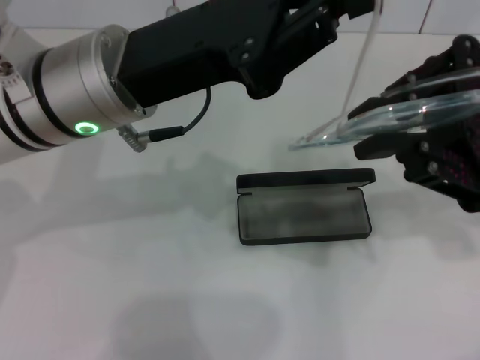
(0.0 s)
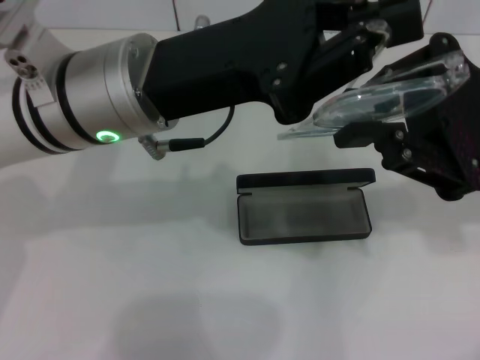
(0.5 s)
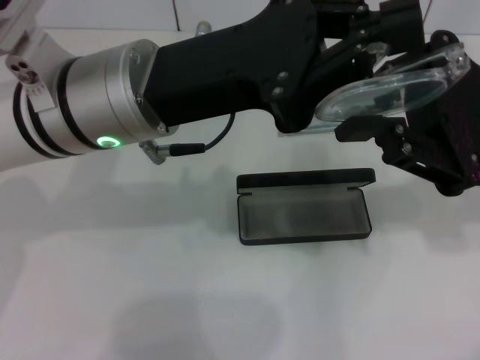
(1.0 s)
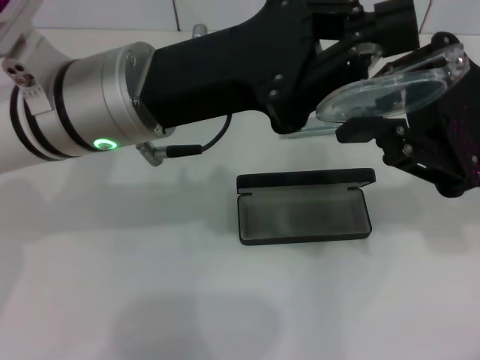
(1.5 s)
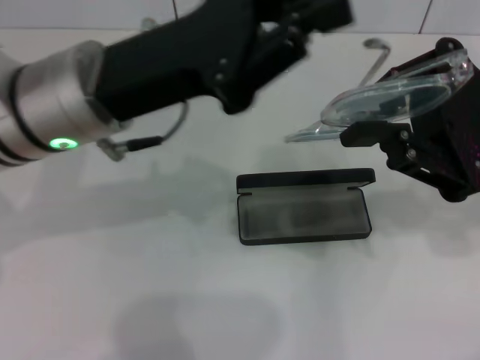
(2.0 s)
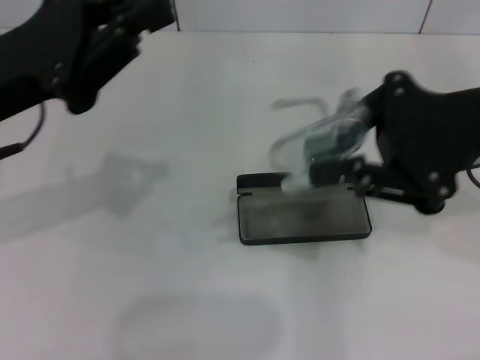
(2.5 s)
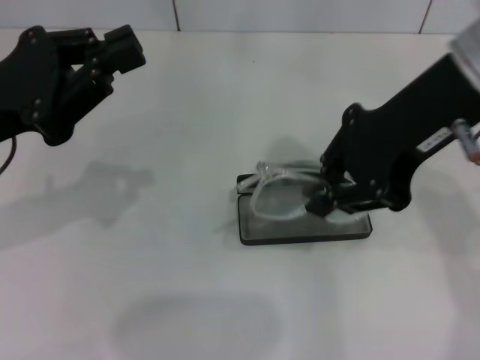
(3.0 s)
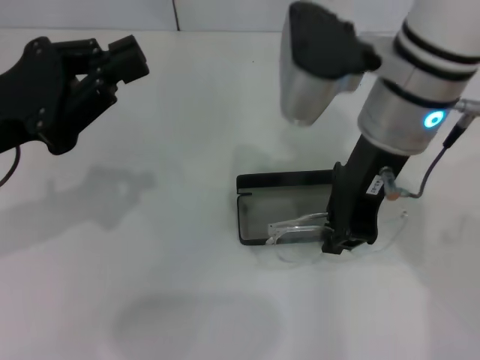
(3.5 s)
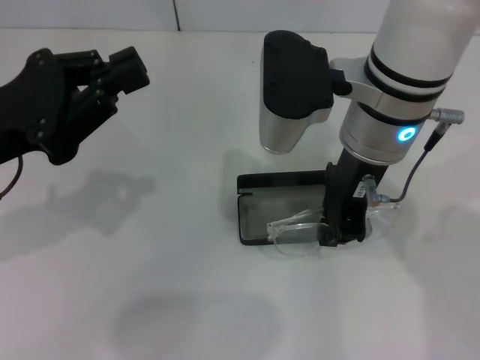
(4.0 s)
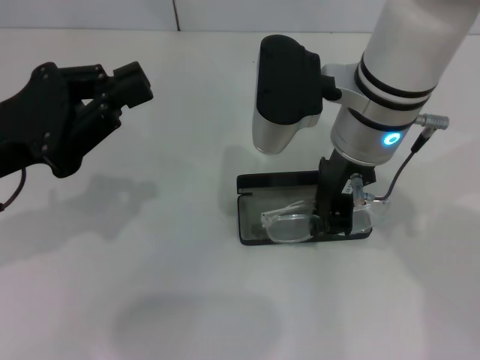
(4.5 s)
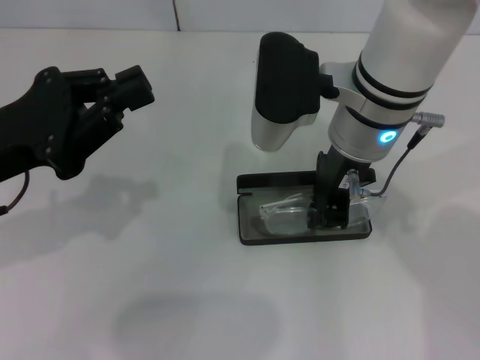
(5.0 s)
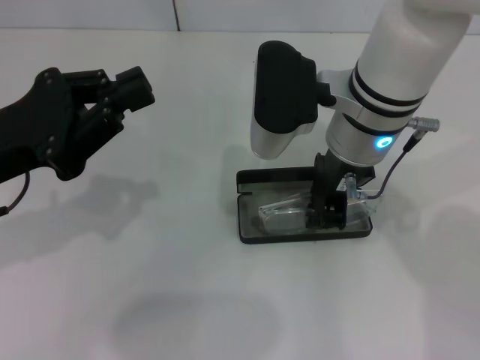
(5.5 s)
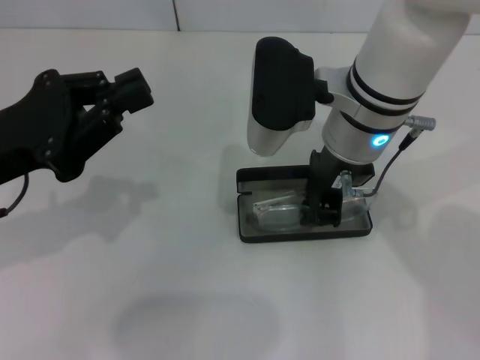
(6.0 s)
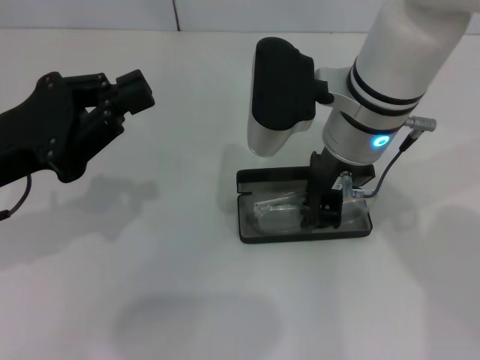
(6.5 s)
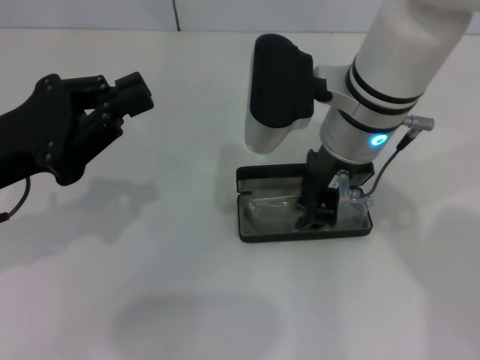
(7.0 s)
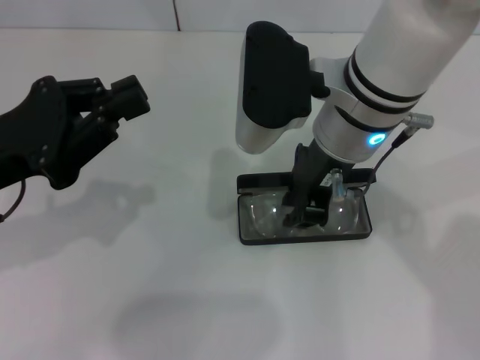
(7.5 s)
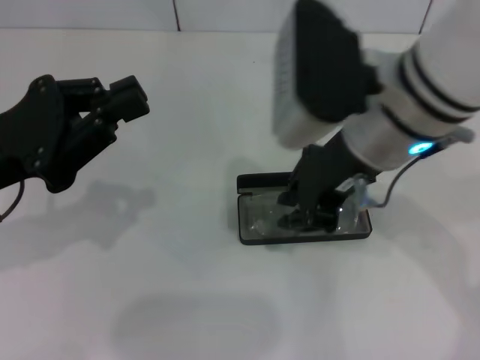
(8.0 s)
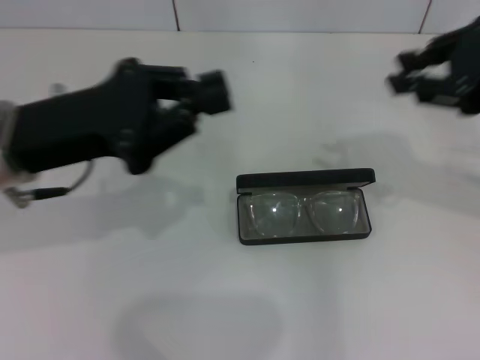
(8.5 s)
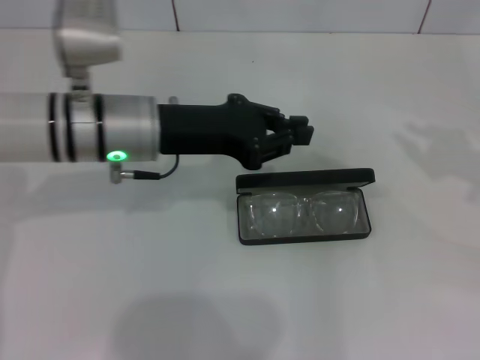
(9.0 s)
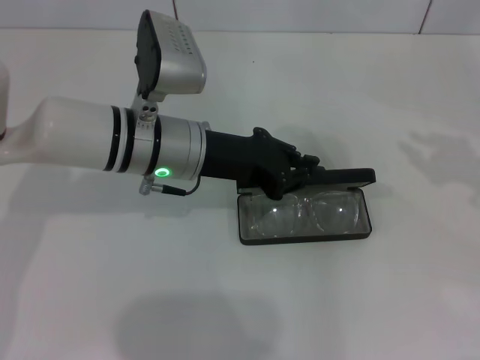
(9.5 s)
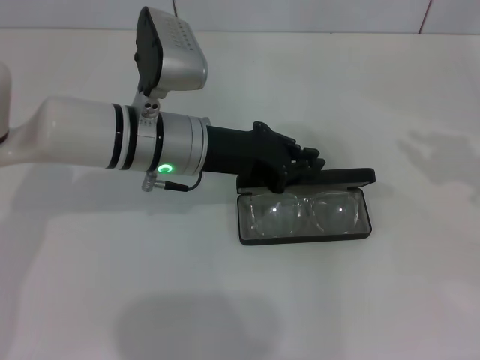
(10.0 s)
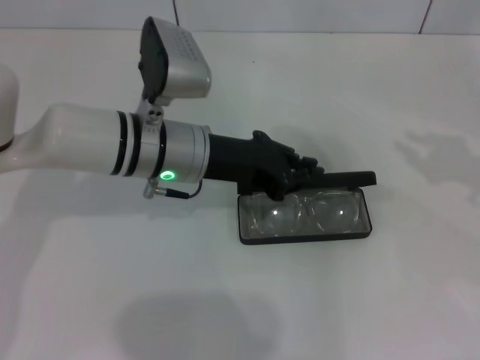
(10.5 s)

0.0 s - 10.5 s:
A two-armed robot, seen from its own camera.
Step, 1.5 s - 7.0 s: Put the glasses into the case with your right hand.
0.0 s - 2.0 s: The grippers stay close to where they were, moving slightly.
2.0 s - 4.0 s: The two grippers go approximately 15 cm to the left.
4.0 s - 6.5 s: There are only small adjustments of the grippers.
6.5 s - 8.5 s: The left gripper changes place by approximately 5 cm, while the right gripper heads to the right and upward, covering roughly 20 cm.
8.5 s - 10.5 s: The left gripper shifts about 15 cm to the right, downward and forward. The right gripper heads to the right and downward, covering approximately 15 cm.

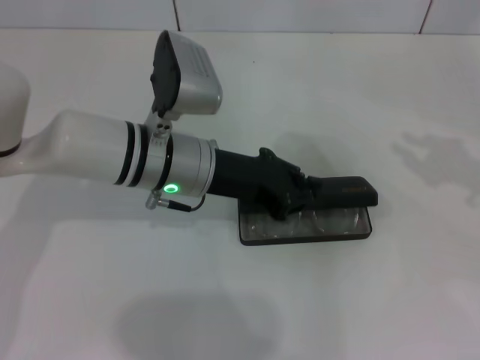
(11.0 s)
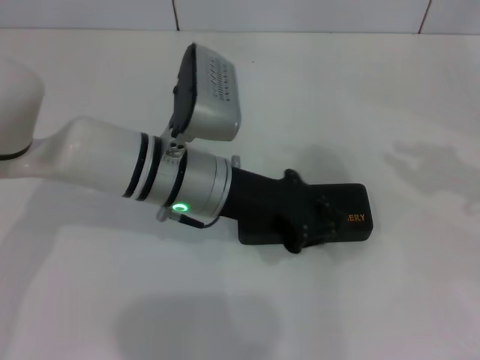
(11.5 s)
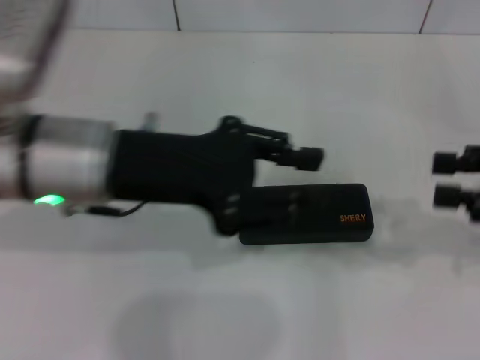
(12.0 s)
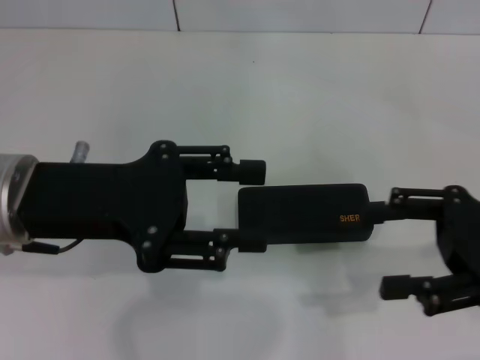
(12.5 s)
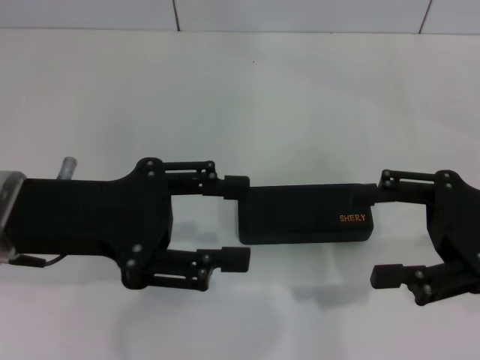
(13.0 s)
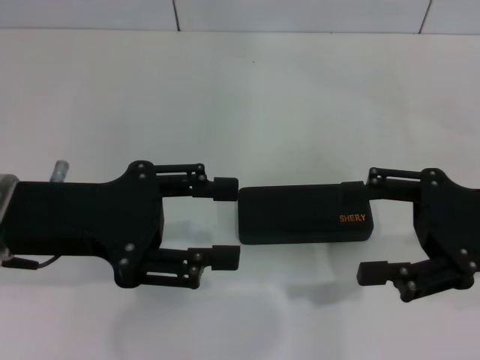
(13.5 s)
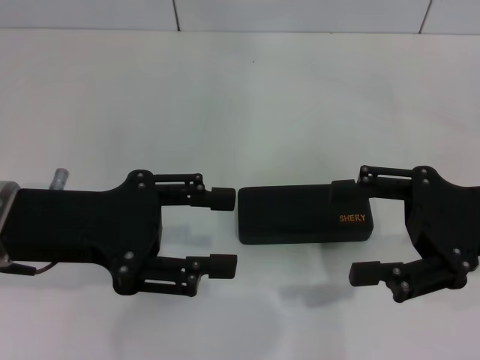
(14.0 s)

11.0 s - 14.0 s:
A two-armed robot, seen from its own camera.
11.0 s - 12.5 s: The left gripper travels to the left, backward and upward by about 15 cm, and opens up; the right gripper goes about 10 cm to the left and downward, and opens.
12.5 s - 14.0 s: The grippers stay close to where they were, moving slightly.
